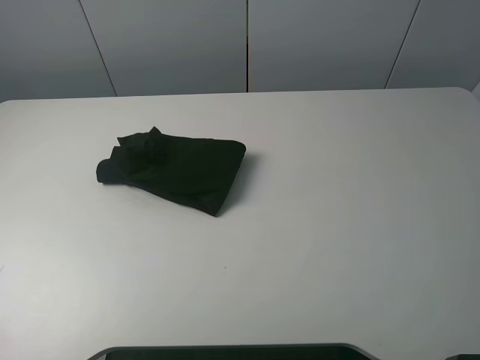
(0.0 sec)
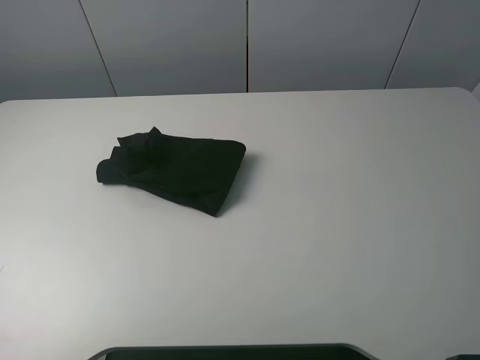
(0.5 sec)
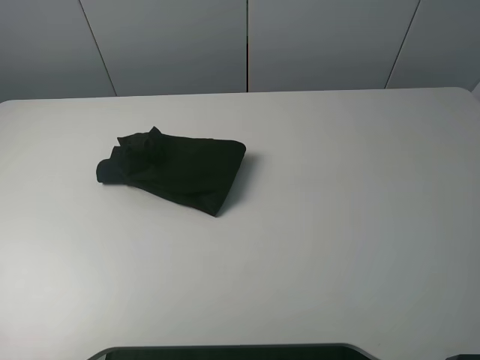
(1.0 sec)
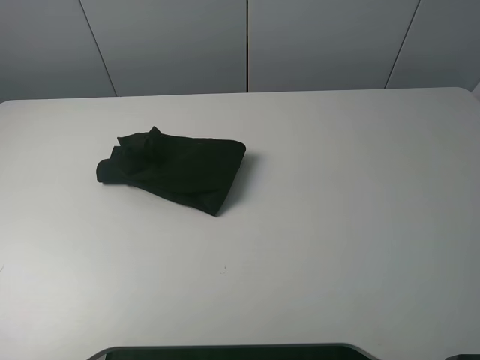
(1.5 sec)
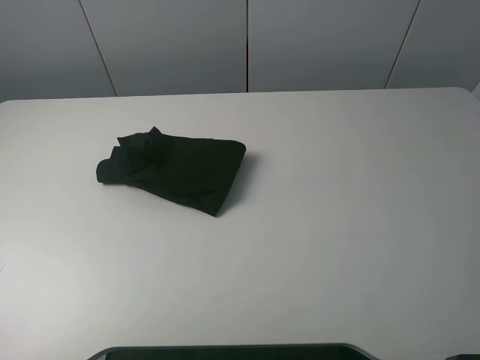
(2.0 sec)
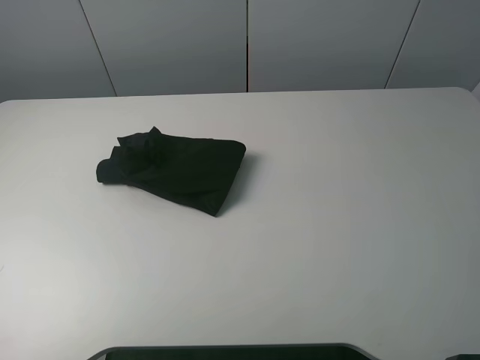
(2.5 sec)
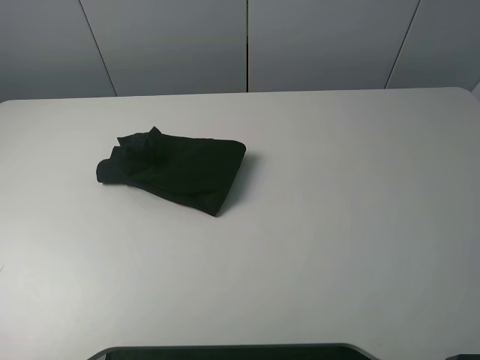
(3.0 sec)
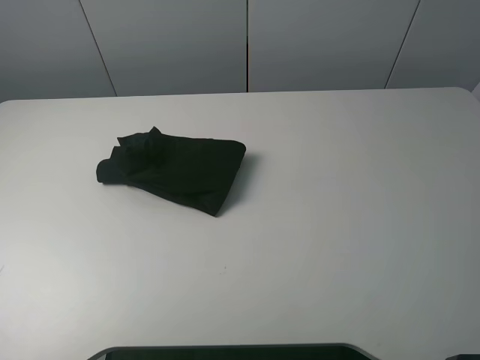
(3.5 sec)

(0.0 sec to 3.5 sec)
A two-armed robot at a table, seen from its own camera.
Task of the whole recording: fold the clothes on the table.
2.0 sec - 3.5 sec: The two grippers keep their place.
